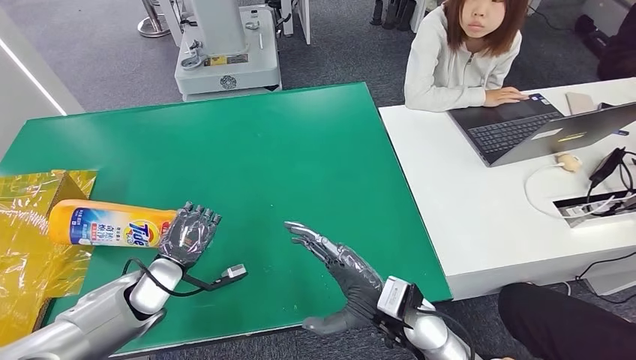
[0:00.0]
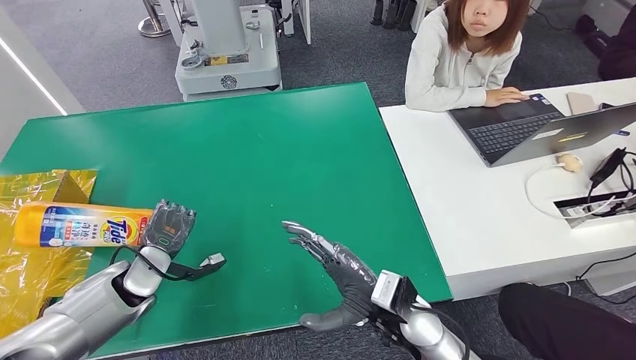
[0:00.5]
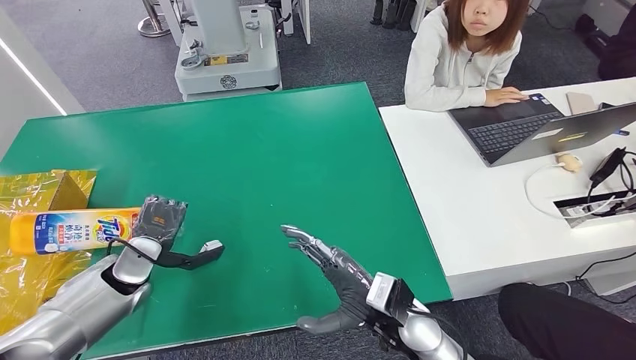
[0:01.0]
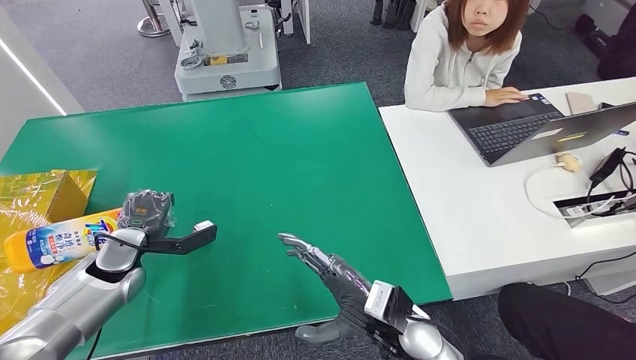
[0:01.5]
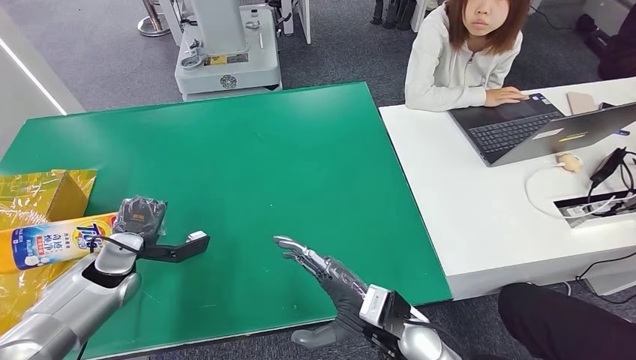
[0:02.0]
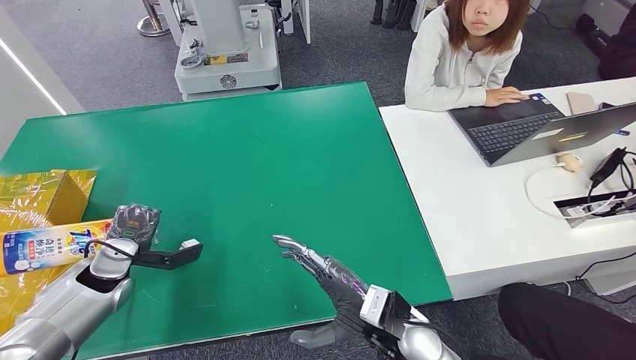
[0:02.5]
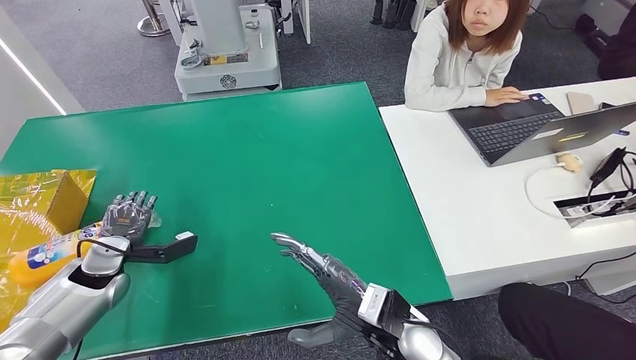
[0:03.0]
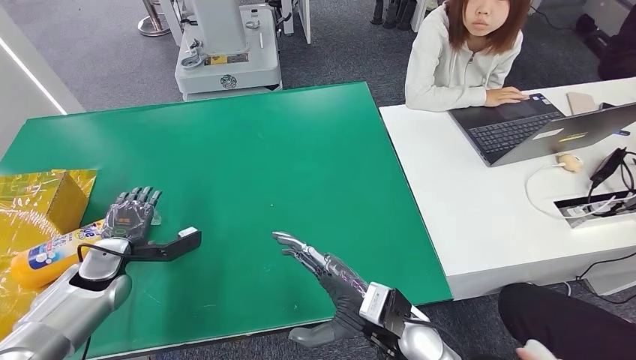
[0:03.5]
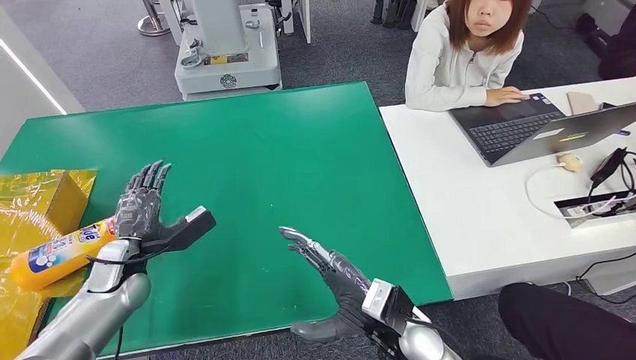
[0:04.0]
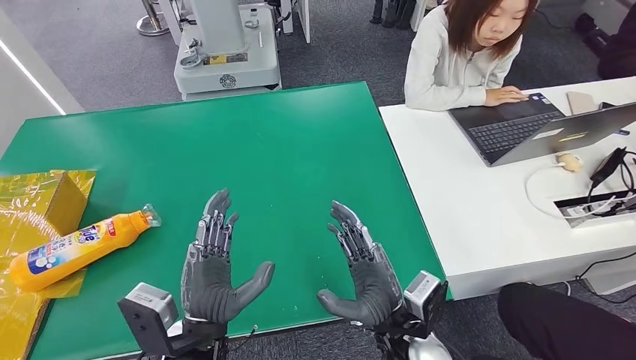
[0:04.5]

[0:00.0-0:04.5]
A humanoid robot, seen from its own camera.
Step, 0:00.0 to 0:04.5: Turn the bottle to the front side.
0:00.0 to 0:02.0: The left hand shifts approximately 5 cm to the left.
0:02.0 to 0:04.5: The left hand goes some 20 cm to the right and backward.
